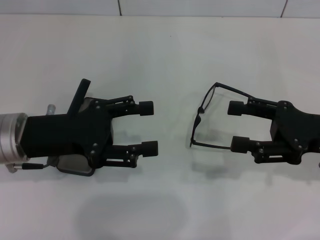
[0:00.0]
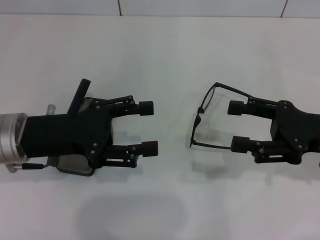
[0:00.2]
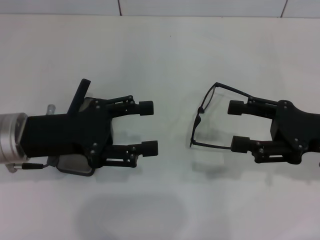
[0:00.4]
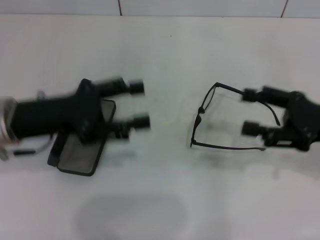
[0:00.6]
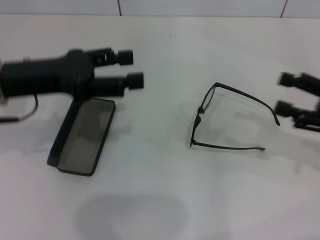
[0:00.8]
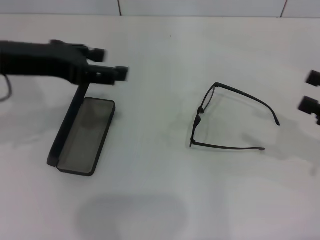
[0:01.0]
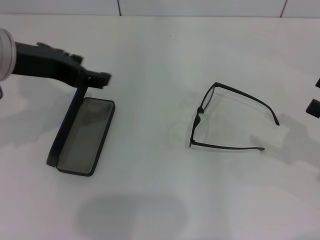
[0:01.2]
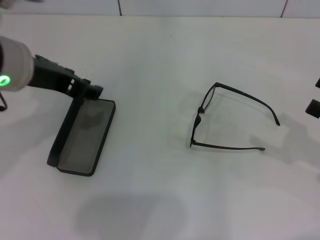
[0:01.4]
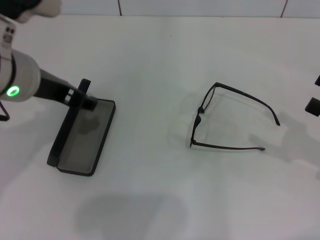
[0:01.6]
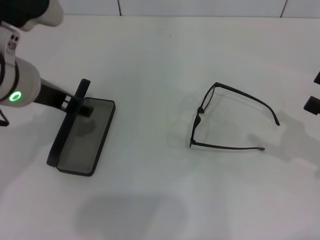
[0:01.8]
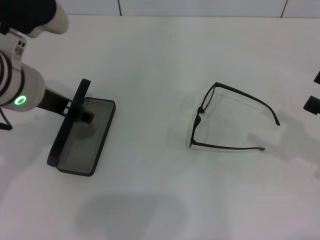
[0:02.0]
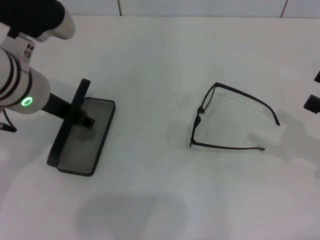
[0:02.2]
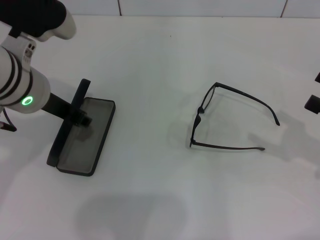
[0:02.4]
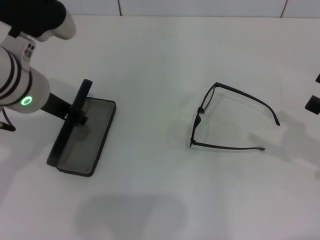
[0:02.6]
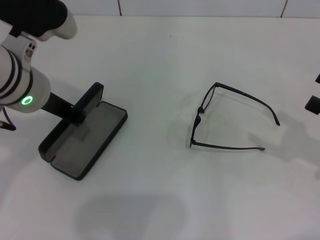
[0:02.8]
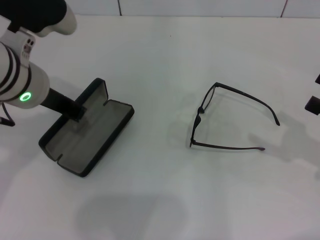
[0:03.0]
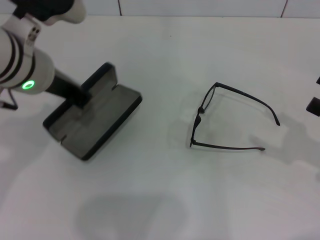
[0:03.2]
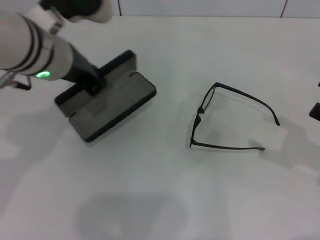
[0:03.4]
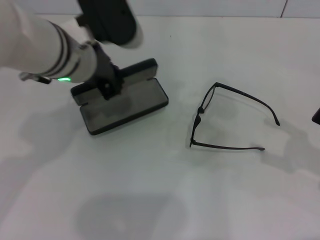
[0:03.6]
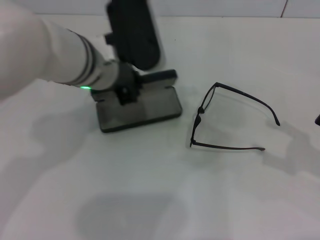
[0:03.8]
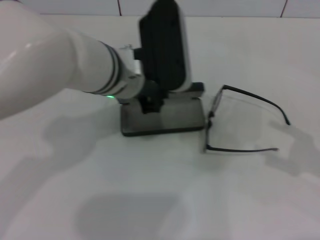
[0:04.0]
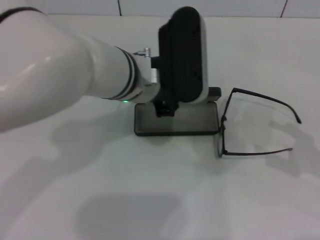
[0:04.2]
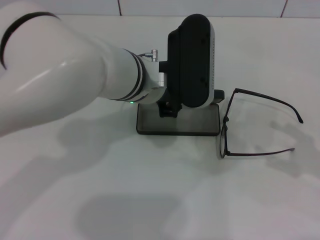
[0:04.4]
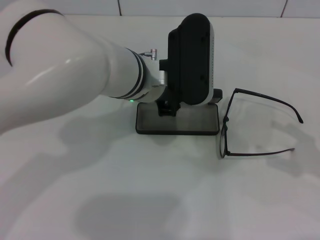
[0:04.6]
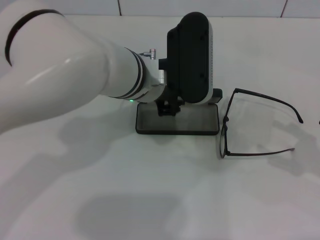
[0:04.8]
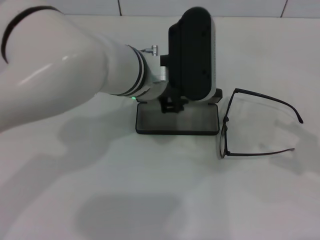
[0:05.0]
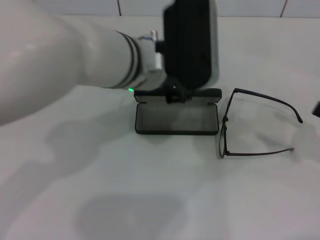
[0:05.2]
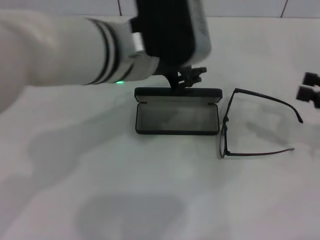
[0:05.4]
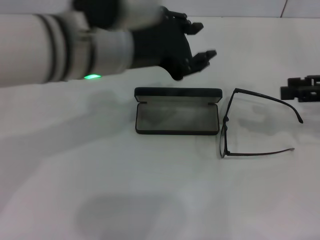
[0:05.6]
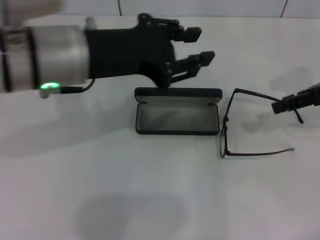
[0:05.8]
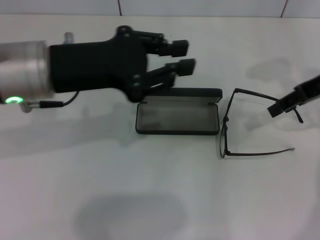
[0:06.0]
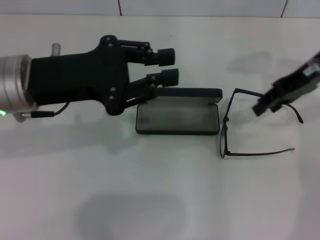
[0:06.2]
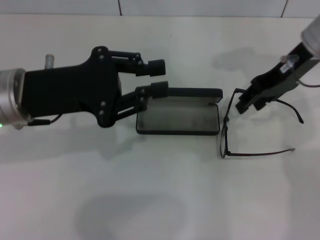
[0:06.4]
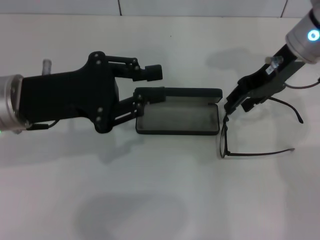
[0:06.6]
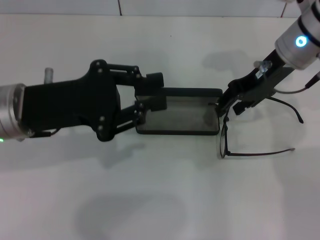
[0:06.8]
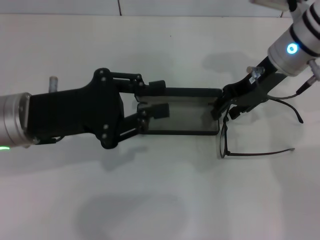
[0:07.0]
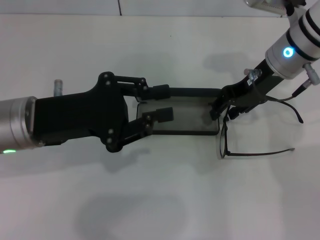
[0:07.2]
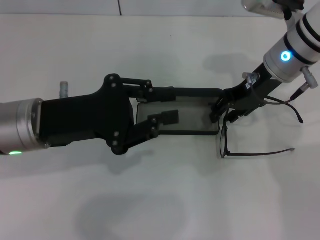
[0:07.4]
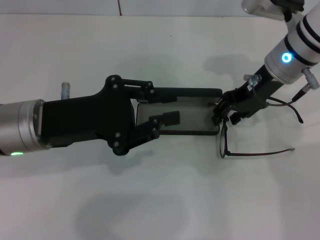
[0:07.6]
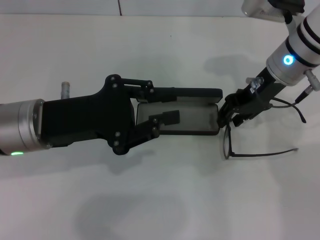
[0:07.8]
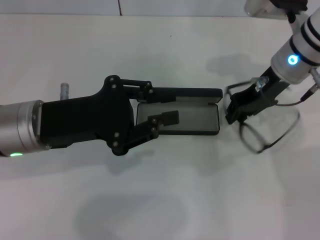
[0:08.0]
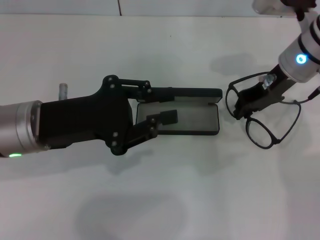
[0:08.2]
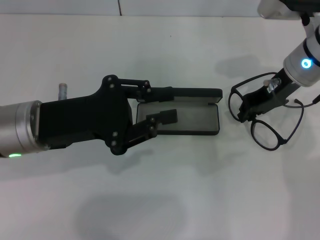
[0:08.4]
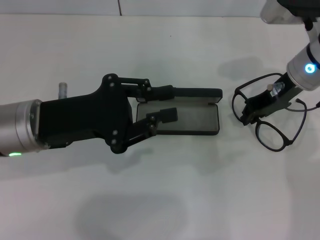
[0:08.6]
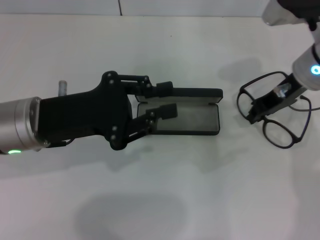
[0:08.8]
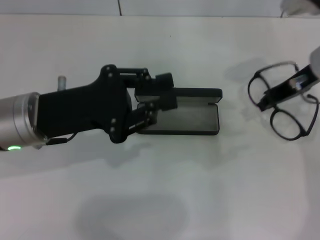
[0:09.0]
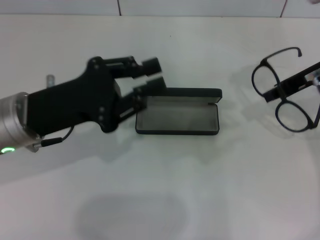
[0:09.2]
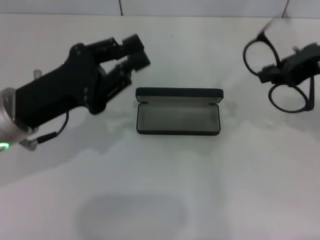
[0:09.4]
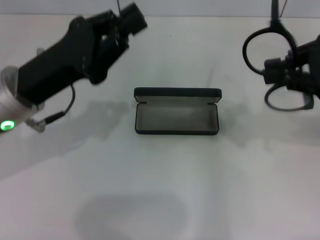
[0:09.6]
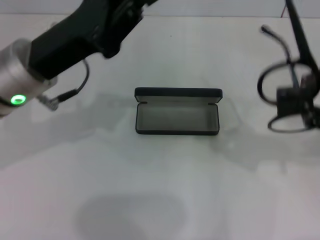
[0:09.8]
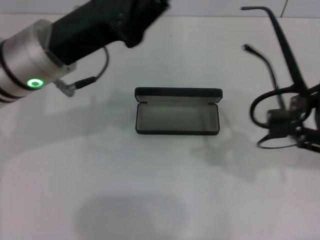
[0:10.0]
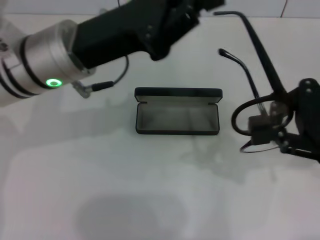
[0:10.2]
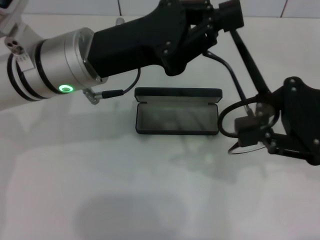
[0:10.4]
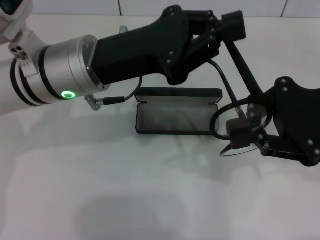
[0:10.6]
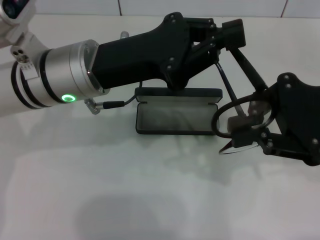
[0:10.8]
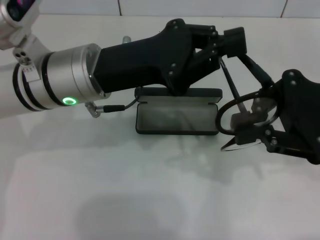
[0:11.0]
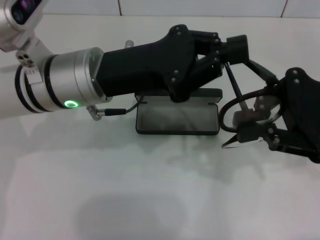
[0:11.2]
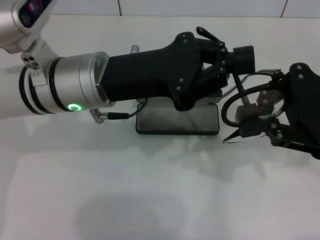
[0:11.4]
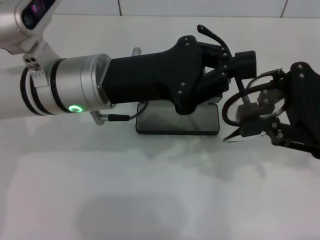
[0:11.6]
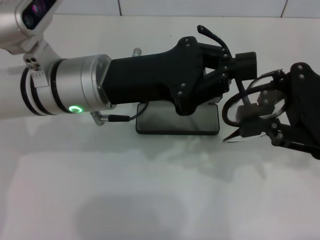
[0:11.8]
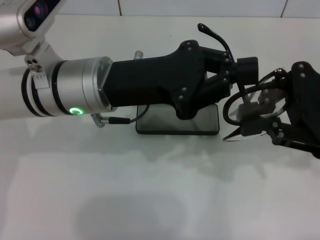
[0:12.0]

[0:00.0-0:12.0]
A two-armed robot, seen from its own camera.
Step, 0:00.0 to 0:02.4: Grab the glasses case with your left hand.
Step, 0:02.6 to 0:05.0: Place the glasses case in the center of the table with your left hand.
Step, 0:05.2 to 0:08.2: Grab the eyeglass frame with your right hand.
0:00.0 to 0:01.6: The right gripper is displaced to the right by approximately 10 cm, while the left gripper heads upward and to the right, covering approximately 10 cm.
0:01.6 to 0:03.0: The left gripper closes up.
0:03.0 to 0:04.4: The left gripper shifts some 15 cm to the right.
0:04.4 to 0:06.0: The right gripper is displaced forward, upward and to the left by roughly 20 cm, and closes its fingers. The left gripper moves to the left, roughly 15 cm.
0:06.0 to 0:07.6: The right gripper goes roughly 10 cm to the left, while the left gripper is displaced downward by approximately 5 cm.
0:07.6 to 0:09.0: The right gripper travels to the right by some 5 cm.
0:09.0 to 0:10.4: The right gripper goes some 10 cm backward. Meanwhile the left gripper goes roughly 5 cm to the right.

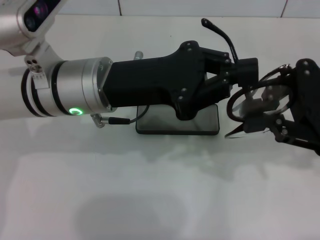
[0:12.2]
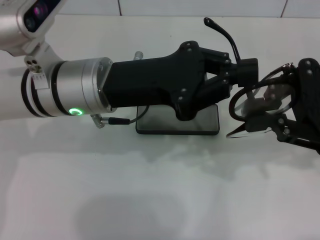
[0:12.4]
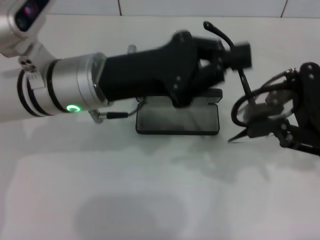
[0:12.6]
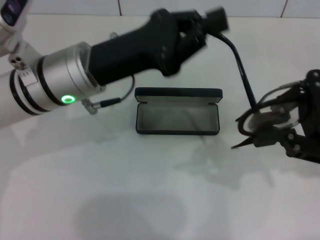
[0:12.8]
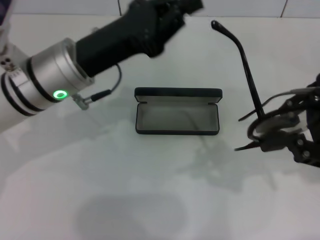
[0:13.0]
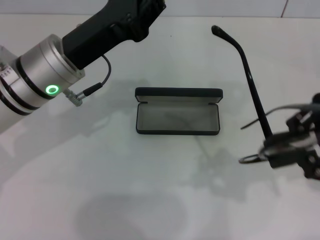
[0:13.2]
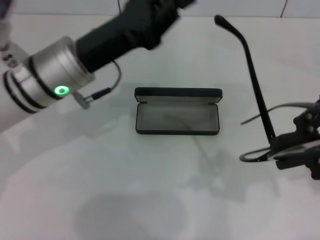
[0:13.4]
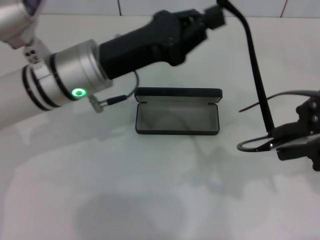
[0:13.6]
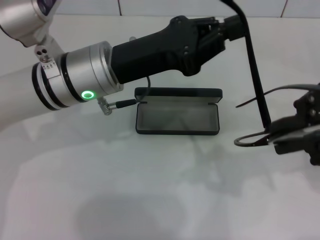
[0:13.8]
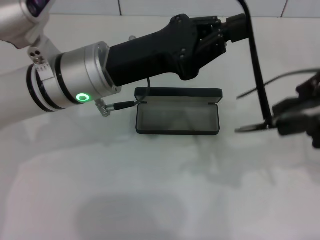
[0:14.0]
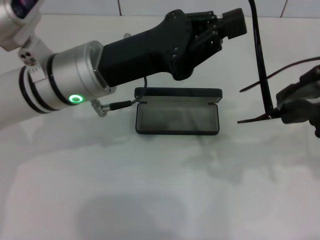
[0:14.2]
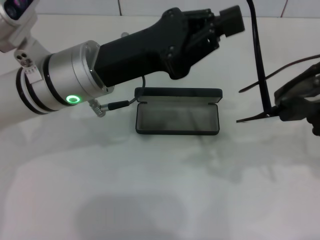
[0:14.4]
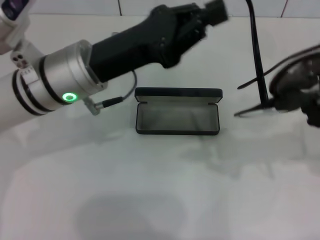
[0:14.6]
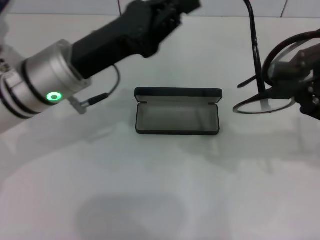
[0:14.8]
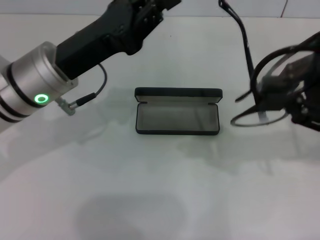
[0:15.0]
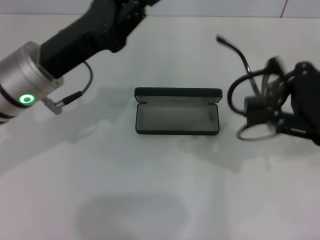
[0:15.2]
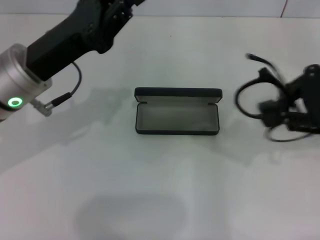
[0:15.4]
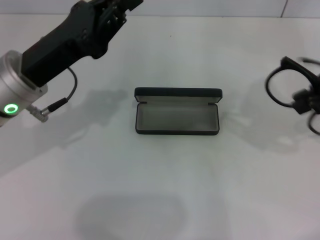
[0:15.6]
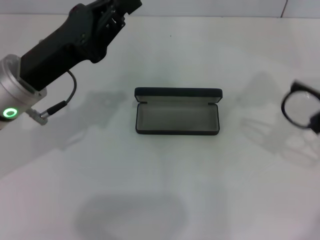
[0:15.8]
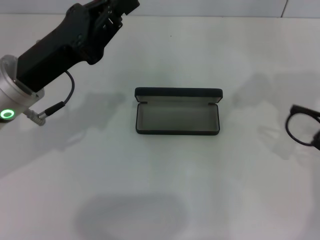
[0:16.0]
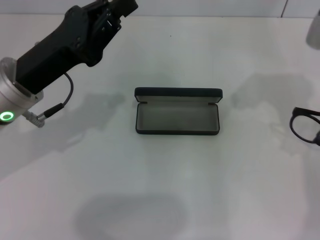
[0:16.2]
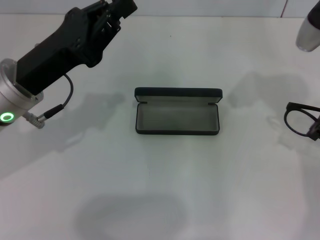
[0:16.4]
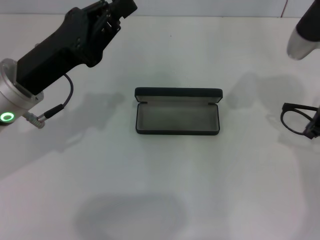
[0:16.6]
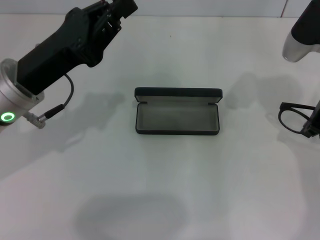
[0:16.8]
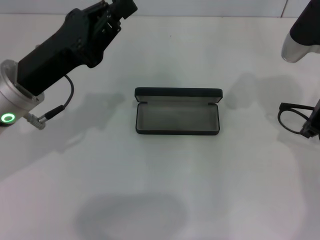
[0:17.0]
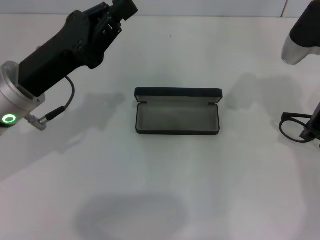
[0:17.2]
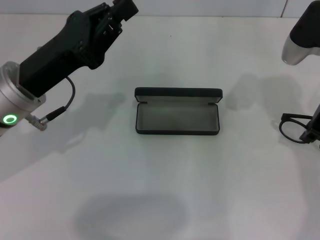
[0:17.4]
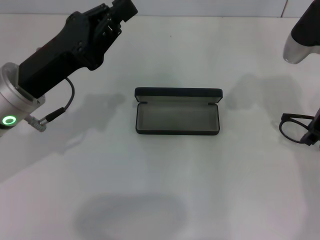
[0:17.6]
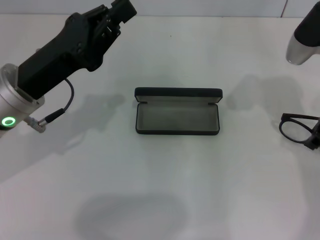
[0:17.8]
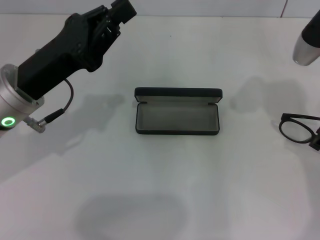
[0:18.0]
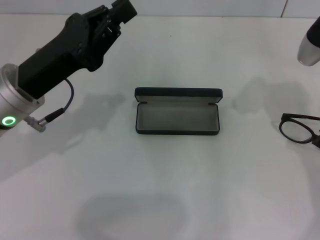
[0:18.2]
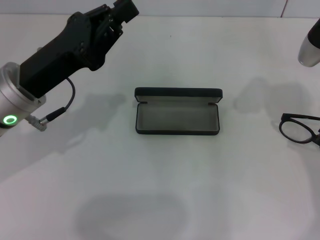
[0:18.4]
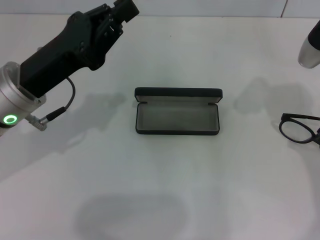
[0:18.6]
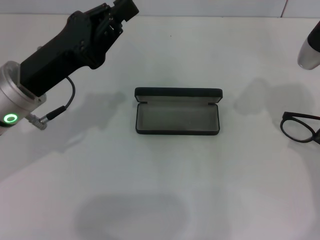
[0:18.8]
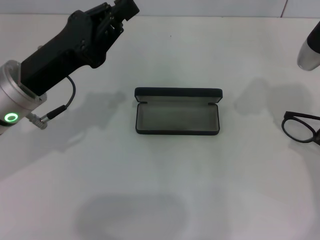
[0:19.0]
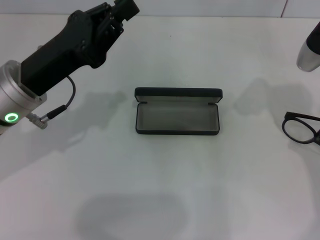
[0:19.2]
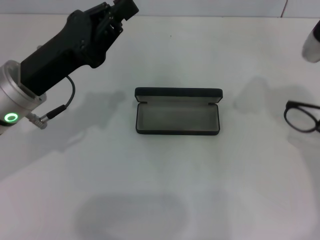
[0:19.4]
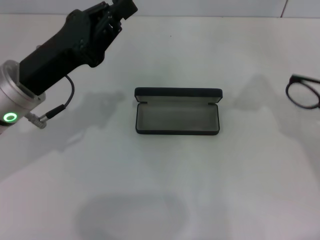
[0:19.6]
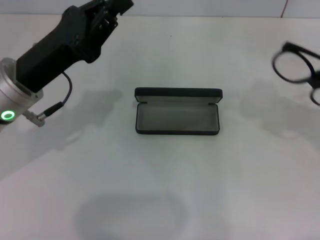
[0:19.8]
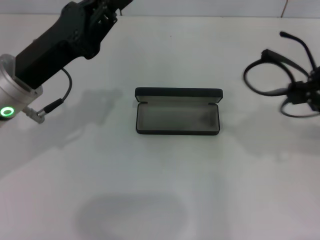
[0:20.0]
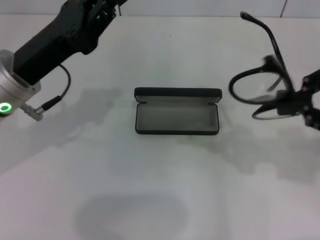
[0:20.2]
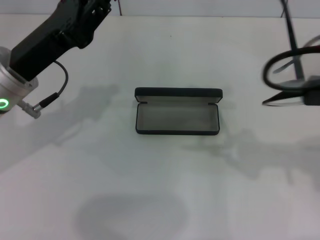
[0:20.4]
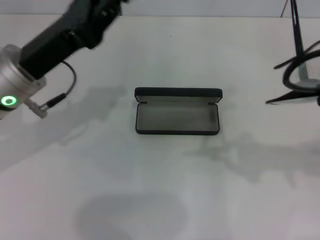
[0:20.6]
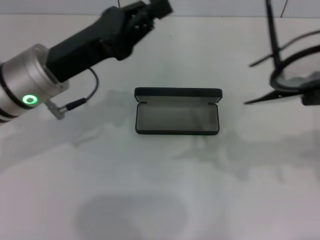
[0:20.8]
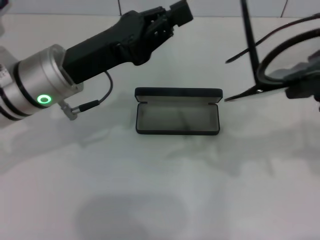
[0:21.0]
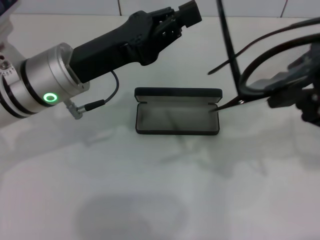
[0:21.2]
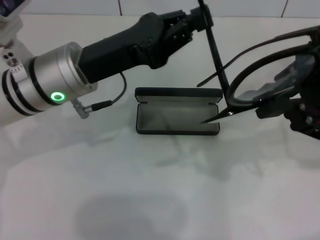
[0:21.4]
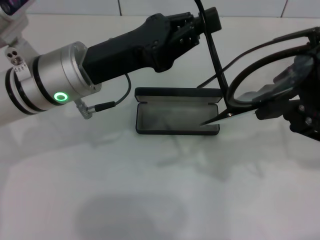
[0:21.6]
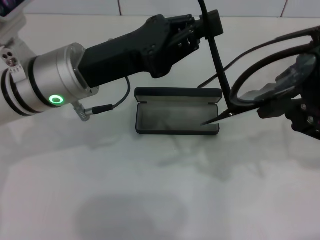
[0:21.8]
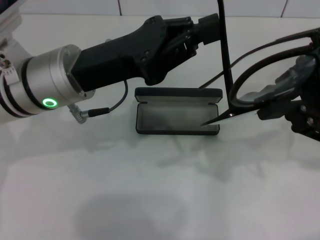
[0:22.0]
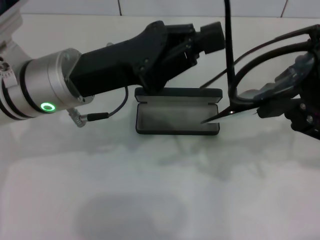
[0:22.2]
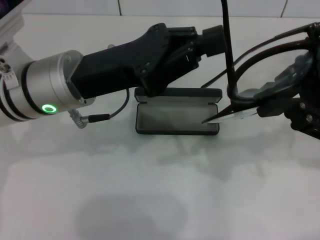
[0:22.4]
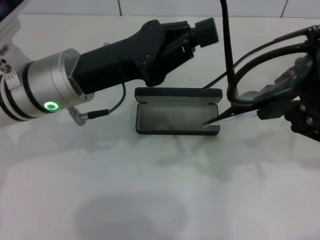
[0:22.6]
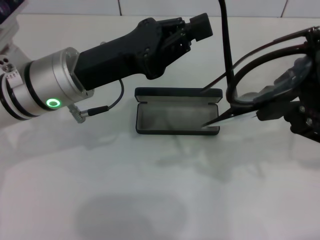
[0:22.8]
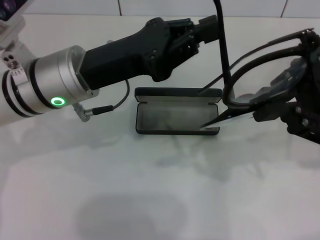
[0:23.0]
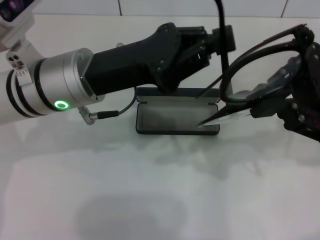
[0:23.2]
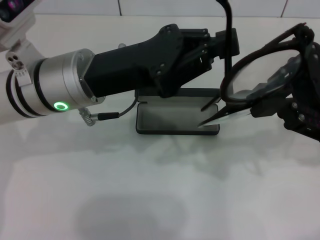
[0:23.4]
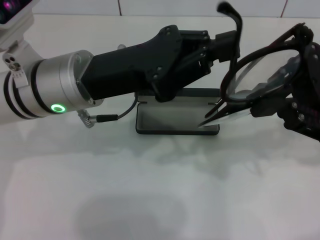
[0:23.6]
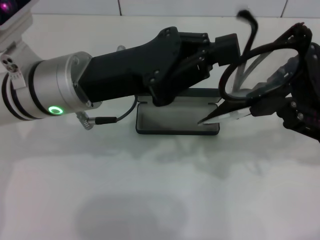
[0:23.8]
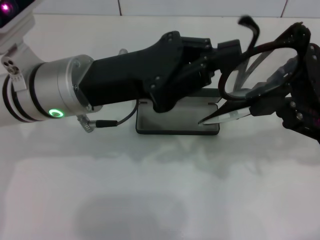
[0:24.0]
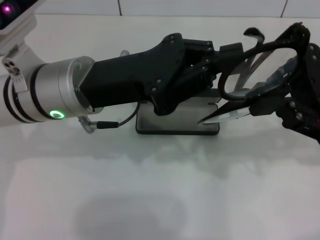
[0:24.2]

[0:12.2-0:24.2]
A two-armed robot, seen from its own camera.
0:13.8 to 0:15.2: The left gripper moves to the left, about 5 cm.
0:15.2 to 0:16.6: The right gripper moves forward, some 10 cm, and goes upward and returns, some 5 cm each way.
0:16.6 to 0:18.2: The grippers move only a little.
0:18.2 to 0:19.8: The right gripper heads upward and backward, covering approximately 10 cm.
0:19.8 to 0:21.2: The right gripper goes roughly 5 cm downward; the left gripper is displaced to the right by approximately 5 cm.
